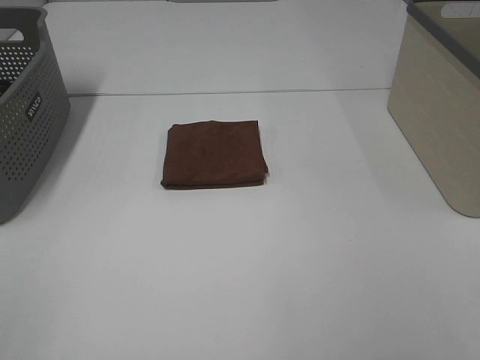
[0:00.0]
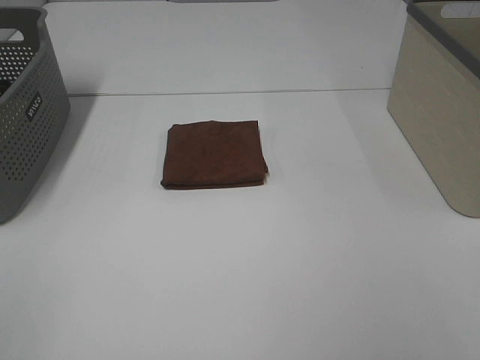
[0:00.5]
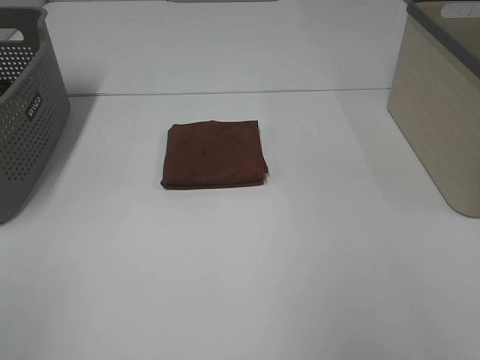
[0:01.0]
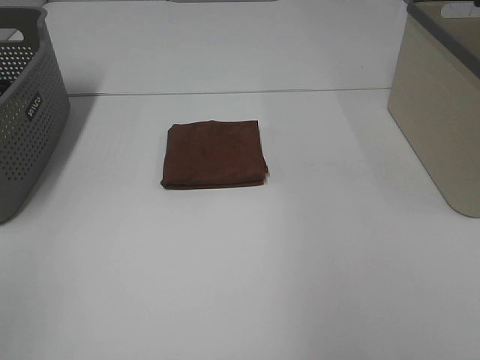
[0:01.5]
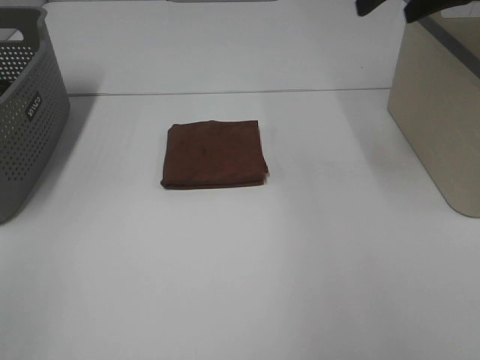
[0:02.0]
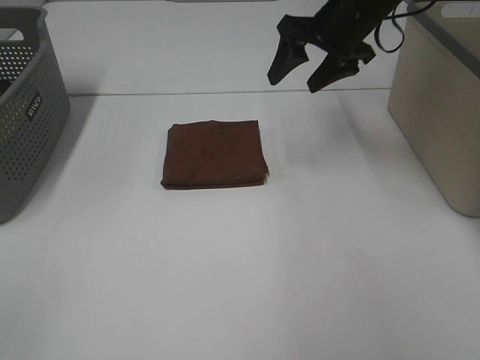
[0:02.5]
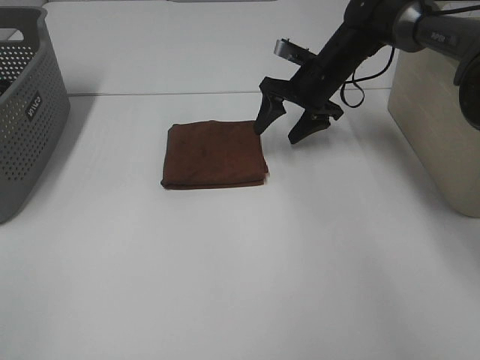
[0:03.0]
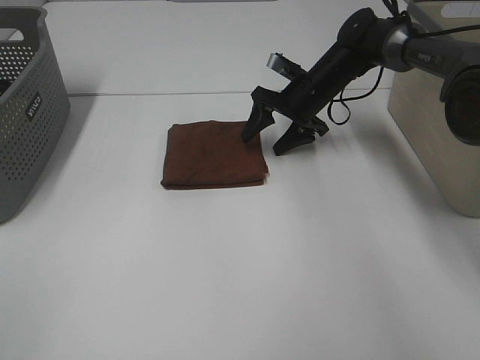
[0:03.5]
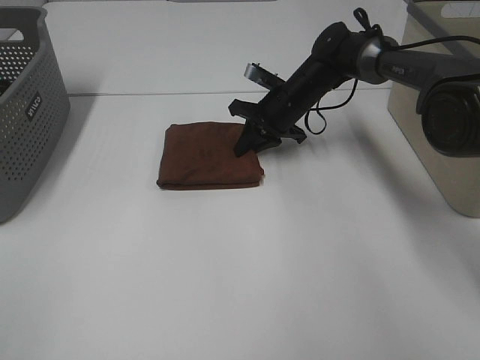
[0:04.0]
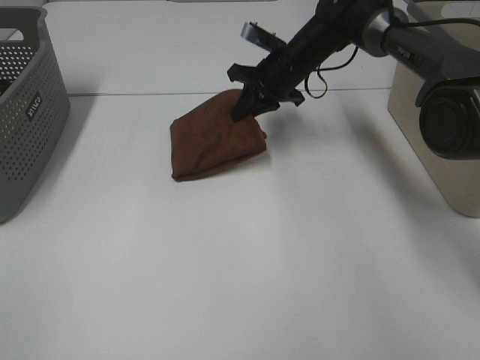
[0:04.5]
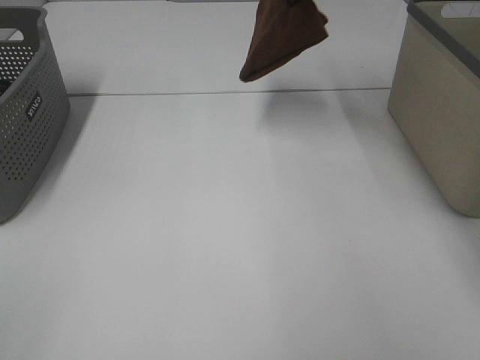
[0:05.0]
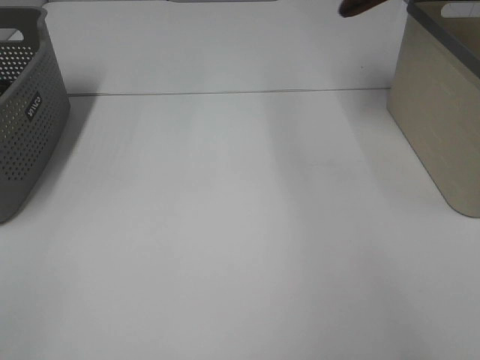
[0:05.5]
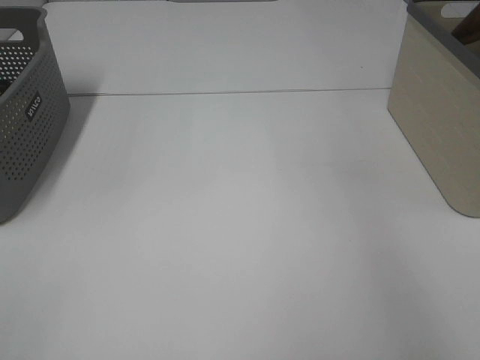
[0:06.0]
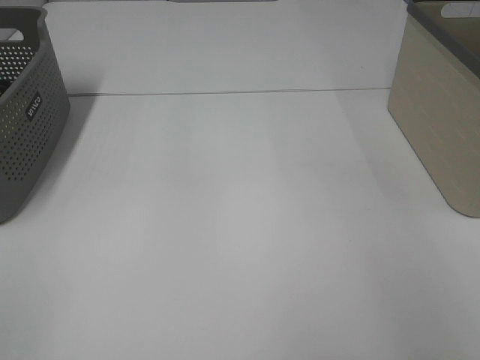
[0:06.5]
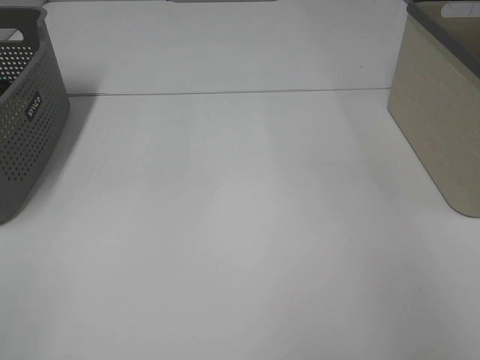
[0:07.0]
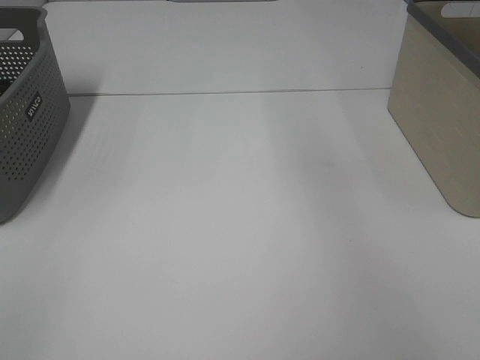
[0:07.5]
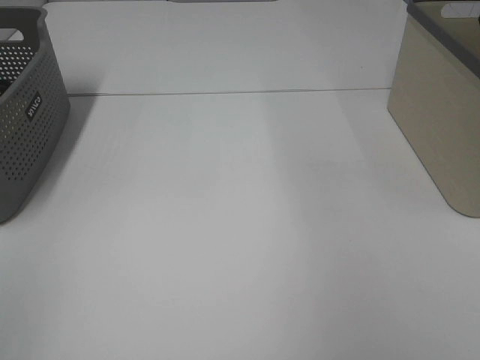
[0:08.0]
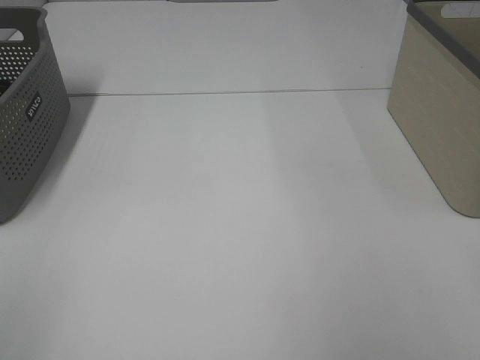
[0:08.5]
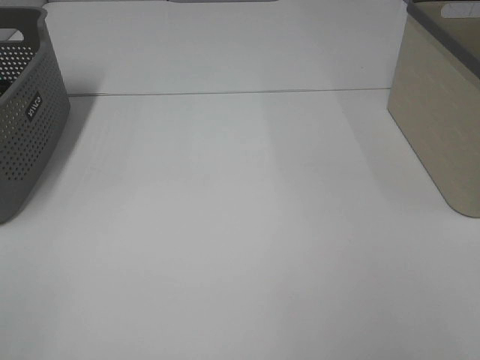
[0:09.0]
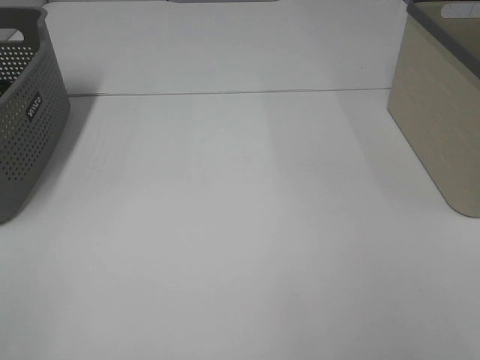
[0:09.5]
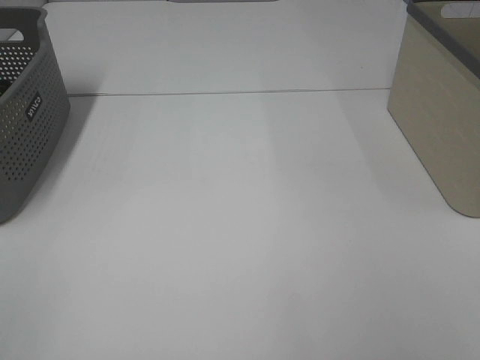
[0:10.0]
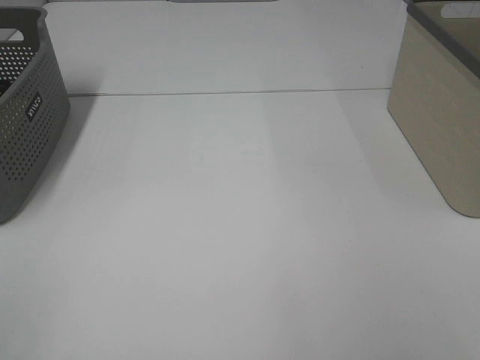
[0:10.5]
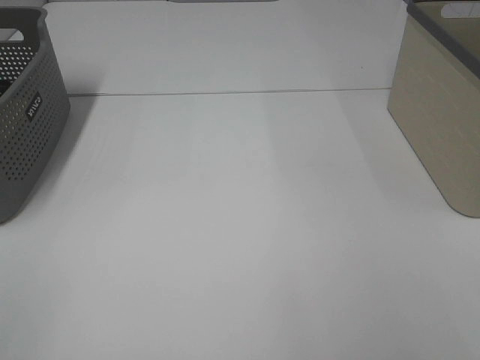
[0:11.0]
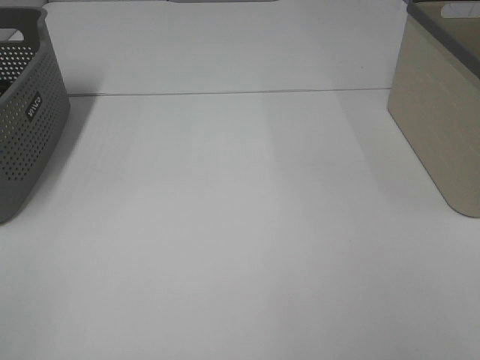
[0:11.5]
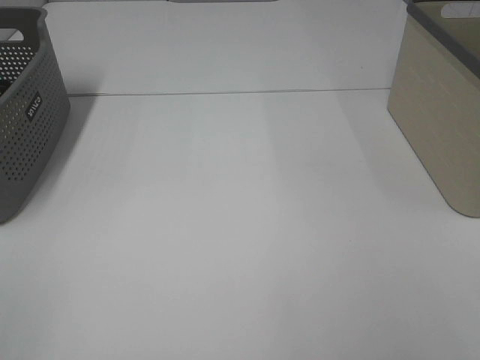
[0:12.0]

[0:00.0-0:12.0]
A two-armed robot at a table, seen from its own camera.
Step, 0:00.0 to 0:04.0: Right hand: grab the folded brown towel.
Step, 0:04.5 to 0:06.5: Right hand: place the brown towel in right basket.
0:00.0 to 0:02.0: The right gripper shifts about 40 cm forward.
0:02.0 to 0:04.0: The right gripper travels downward and to the left by about 30 cm, and closes up.
0:04.0 to 0:06.0: The right gripper moves upward and to the right, about 40 cm.
